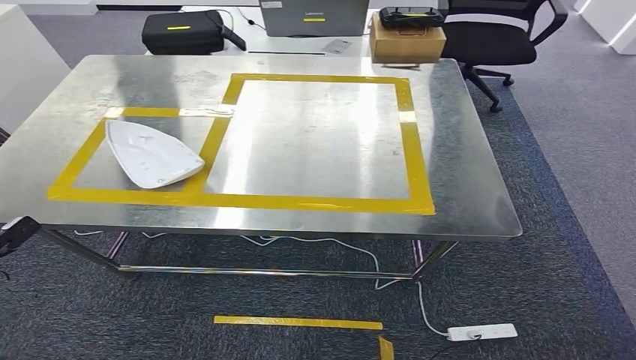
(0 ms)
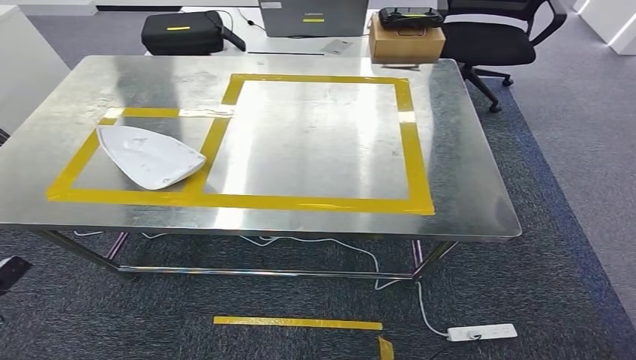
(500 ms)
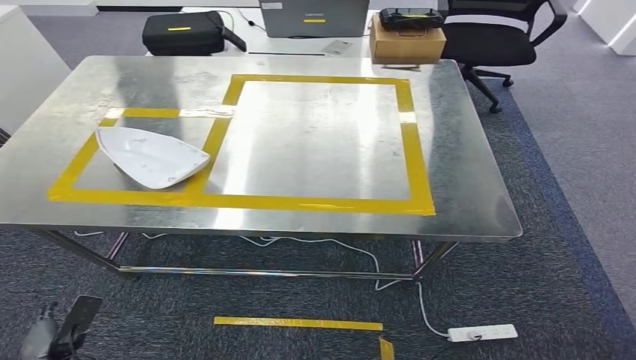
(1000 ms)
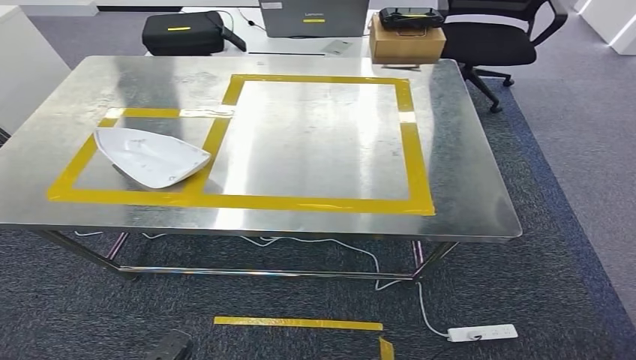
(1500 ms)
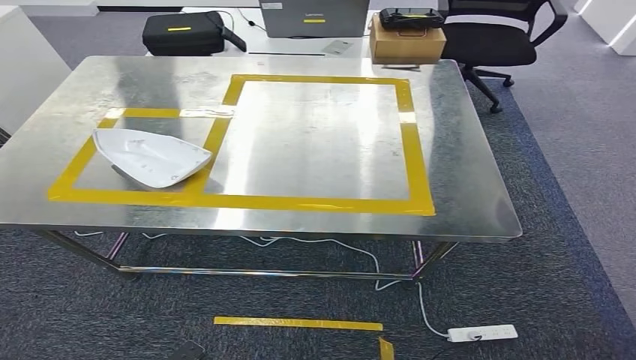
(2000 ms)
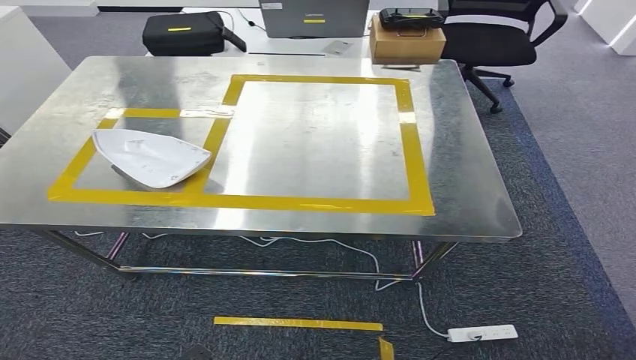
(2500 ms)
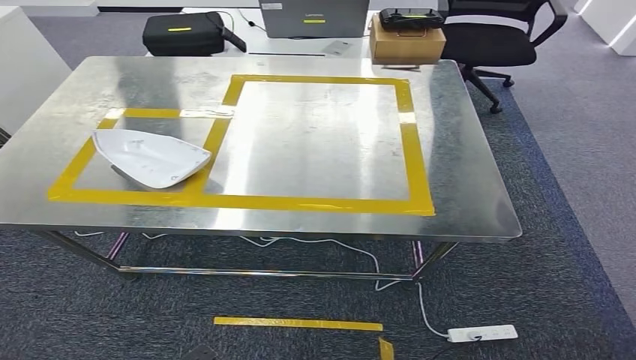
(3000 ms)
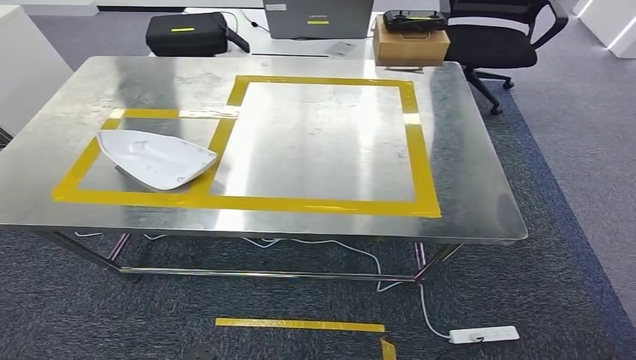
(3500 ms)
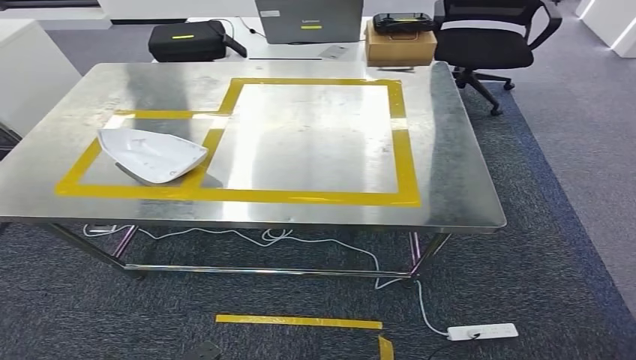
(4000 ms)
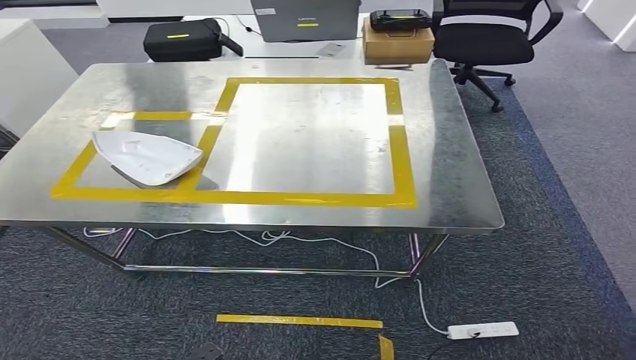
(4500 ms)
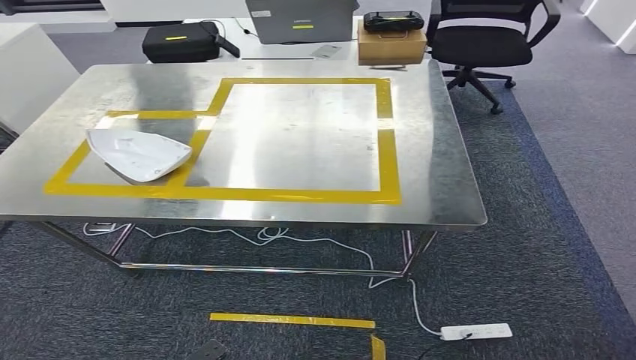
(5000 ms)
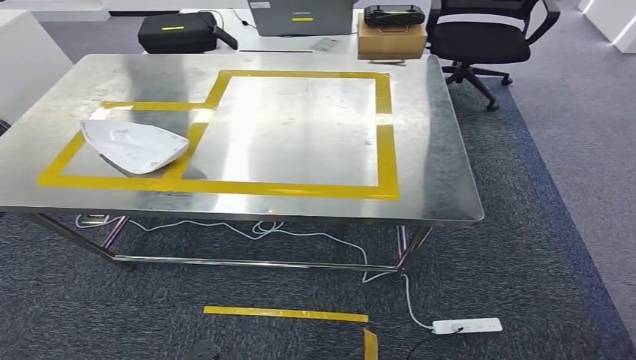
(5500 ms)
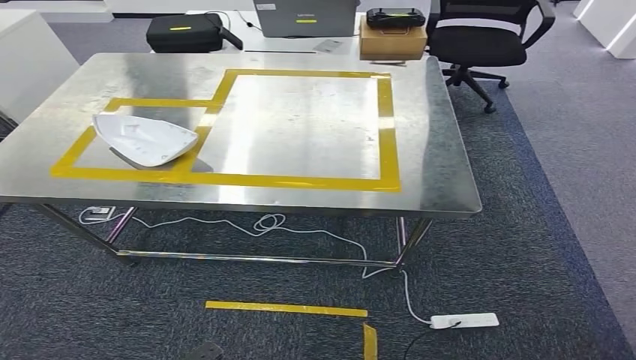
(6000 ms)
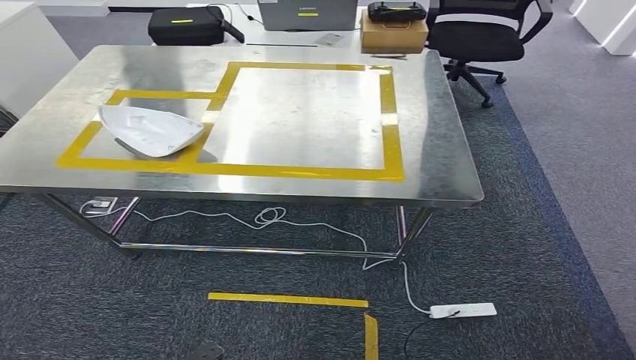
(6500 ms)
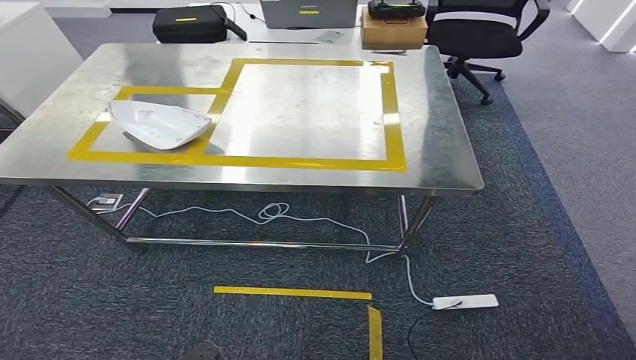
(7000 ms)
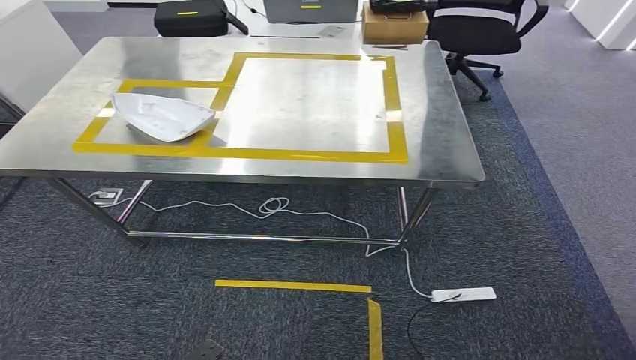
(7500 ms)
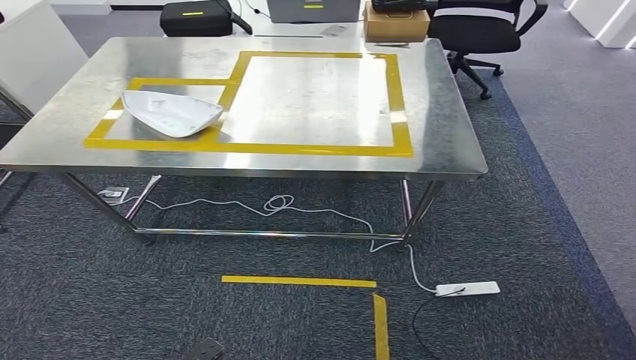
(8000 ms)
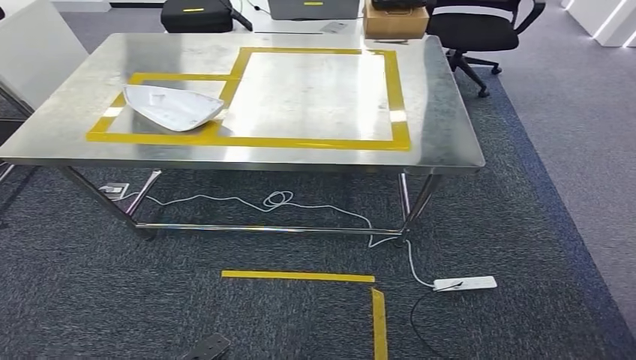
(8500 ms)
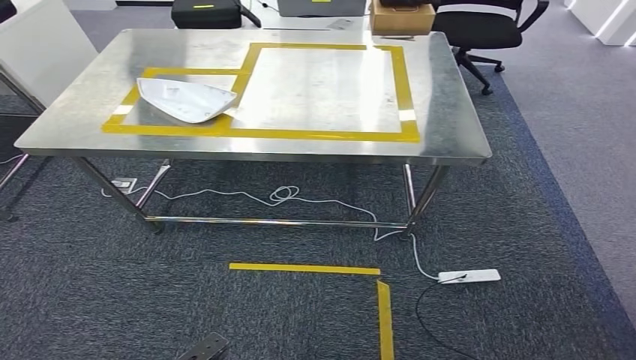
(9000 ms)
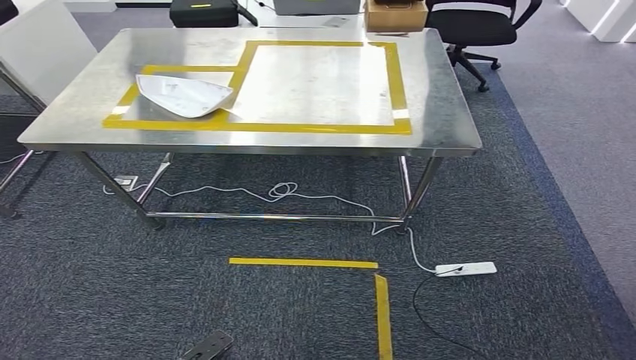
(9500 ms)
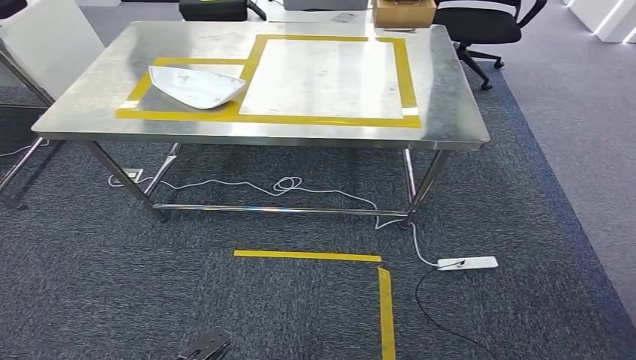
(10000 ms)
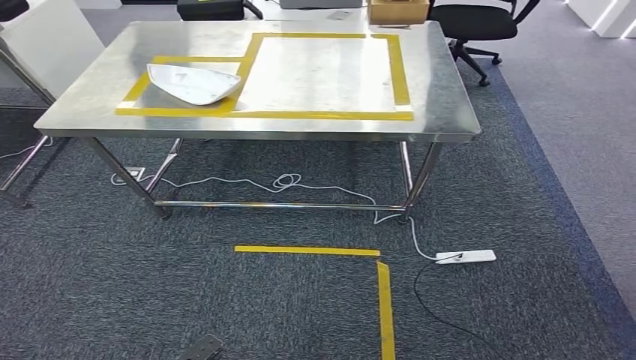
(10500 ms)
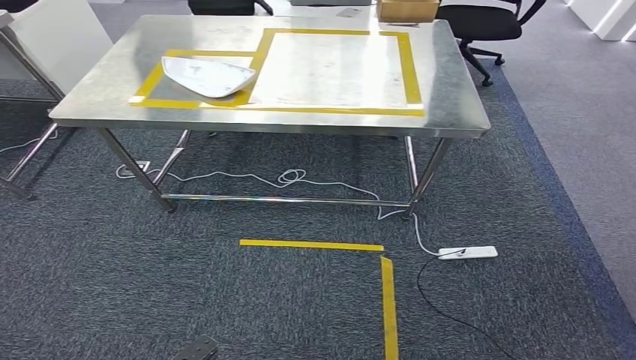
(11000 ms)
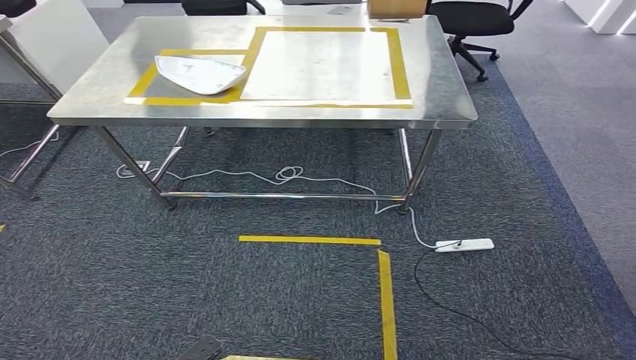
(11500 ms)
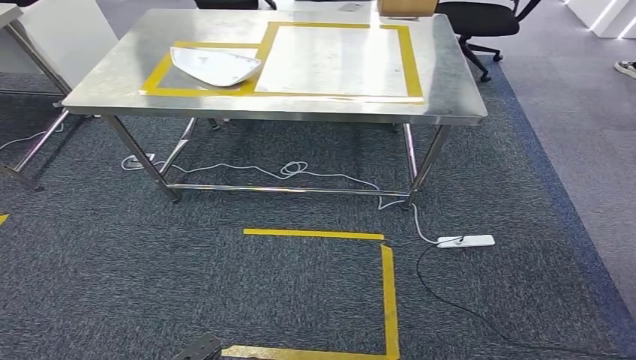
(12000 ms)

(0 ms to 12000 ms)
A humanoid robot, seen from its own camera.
0 ms - 2000 ms: The left hand heads to the right, backward and downward, covering approximately 40 cm.
2000 ms - 4000 ms: There are only small adjustments of the hands.

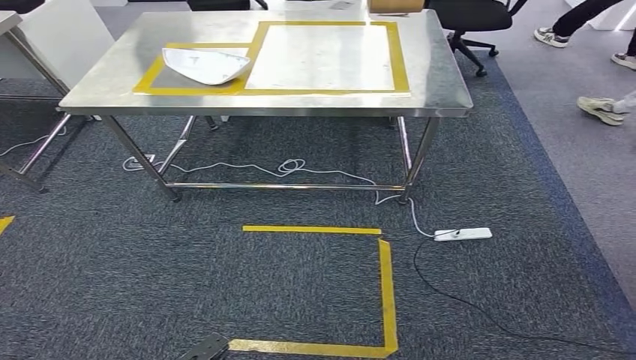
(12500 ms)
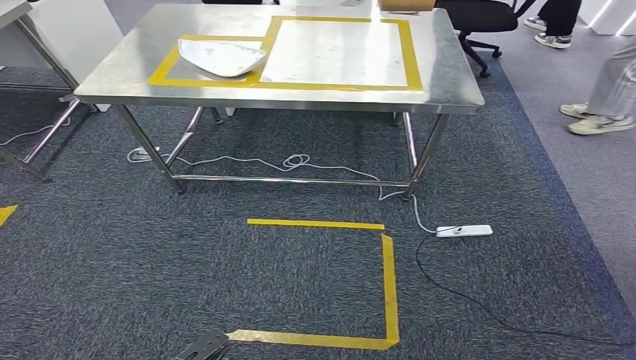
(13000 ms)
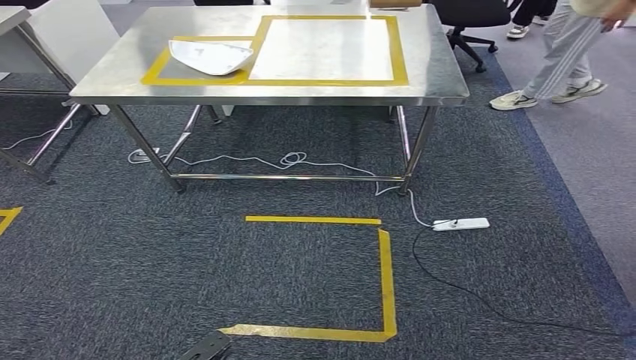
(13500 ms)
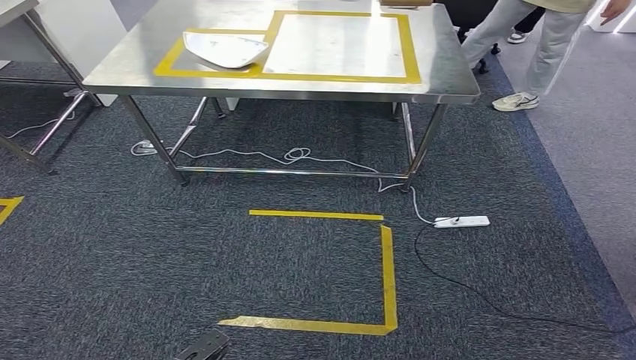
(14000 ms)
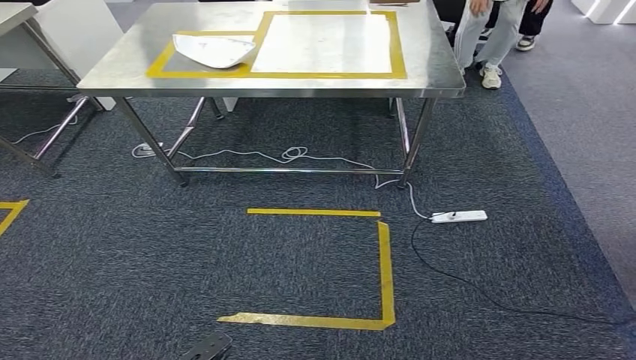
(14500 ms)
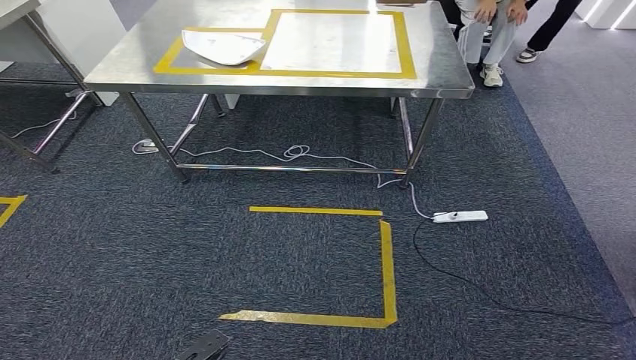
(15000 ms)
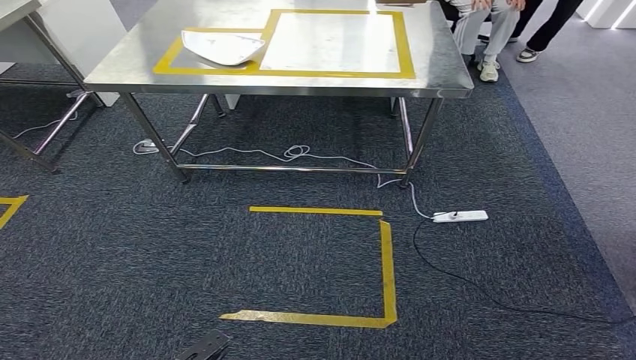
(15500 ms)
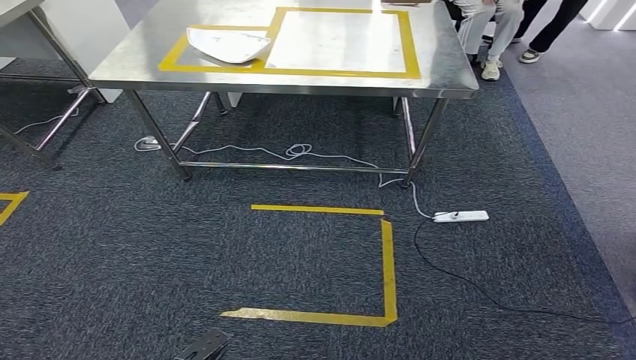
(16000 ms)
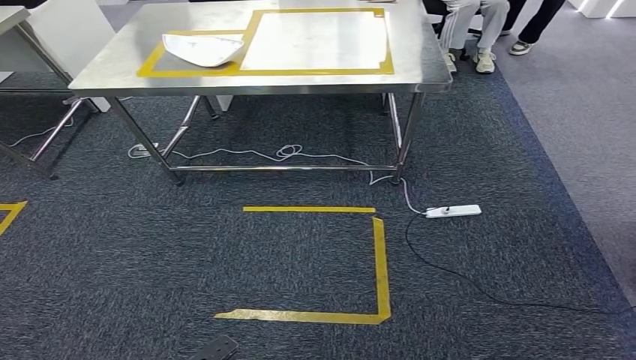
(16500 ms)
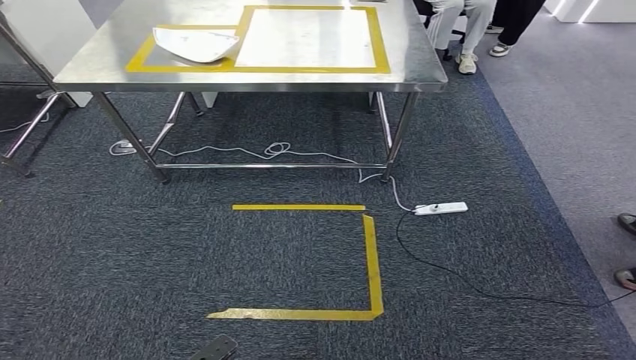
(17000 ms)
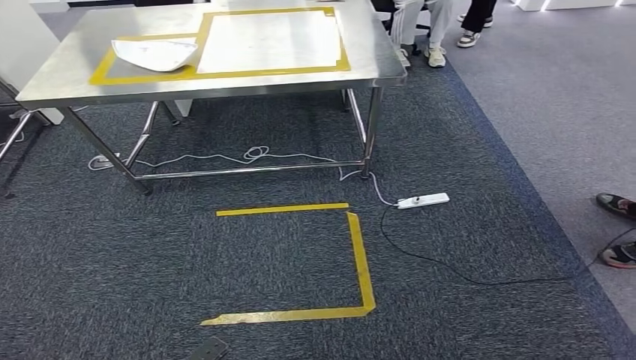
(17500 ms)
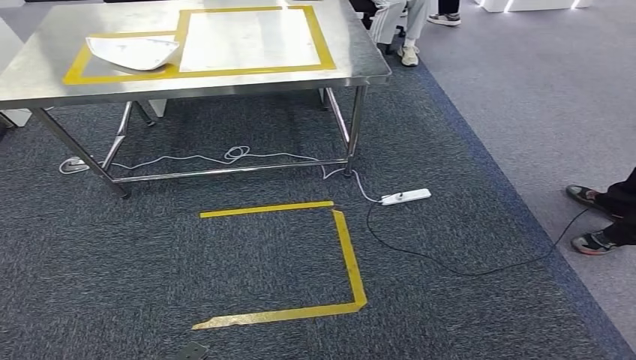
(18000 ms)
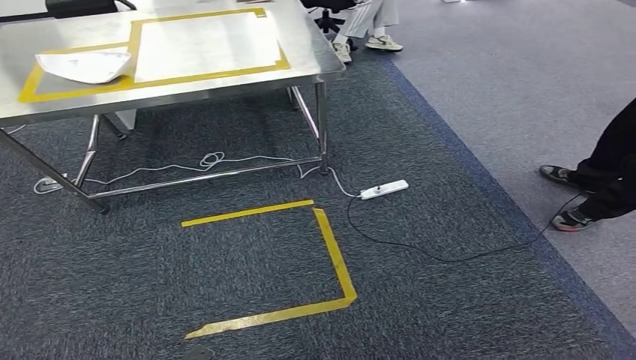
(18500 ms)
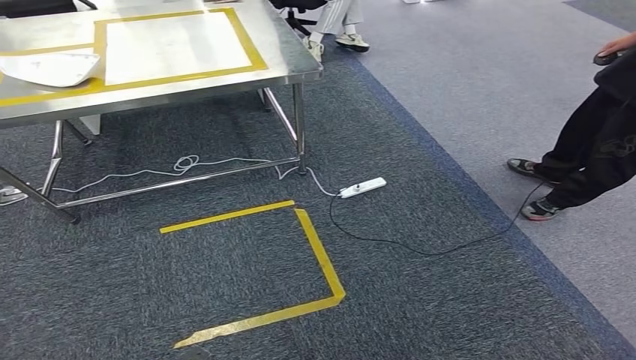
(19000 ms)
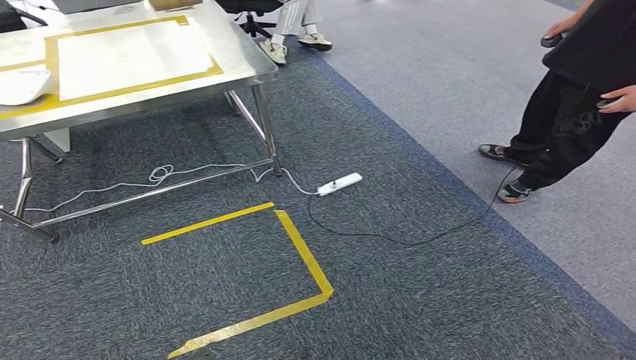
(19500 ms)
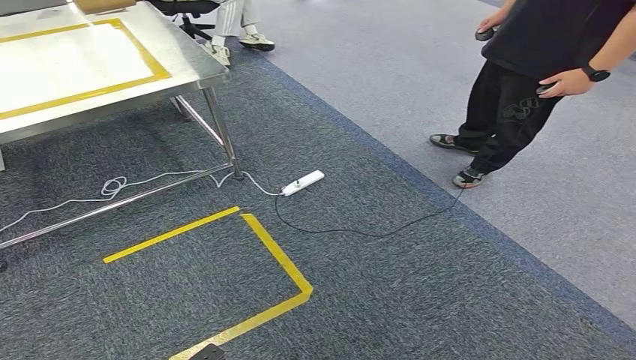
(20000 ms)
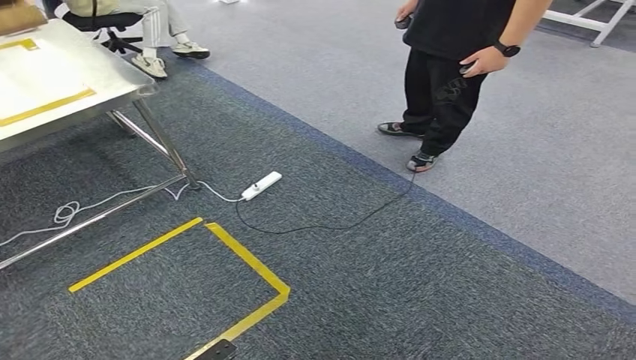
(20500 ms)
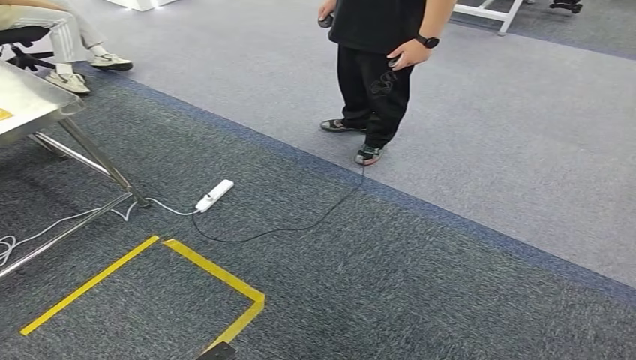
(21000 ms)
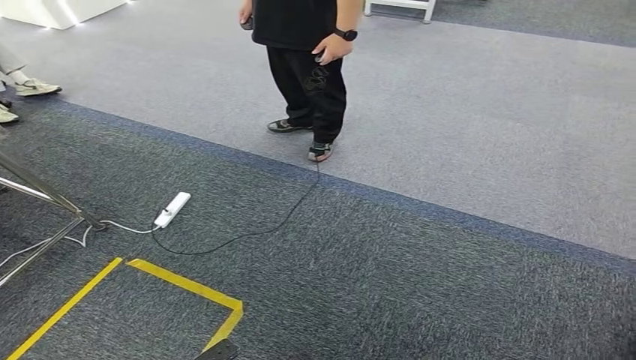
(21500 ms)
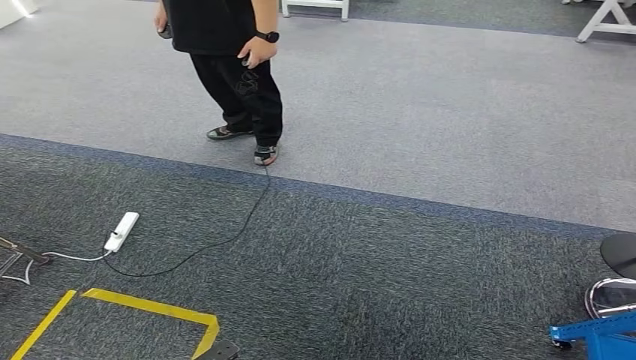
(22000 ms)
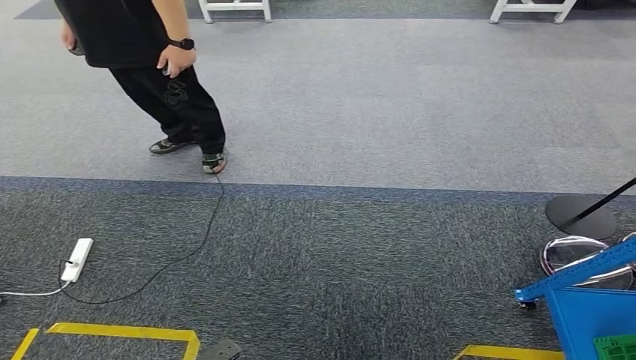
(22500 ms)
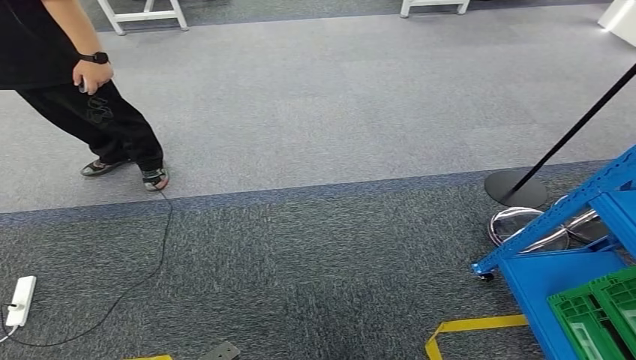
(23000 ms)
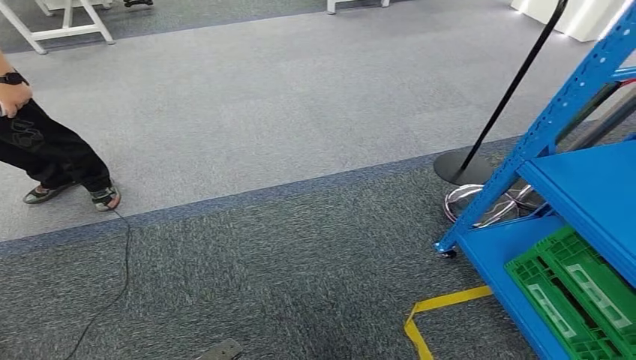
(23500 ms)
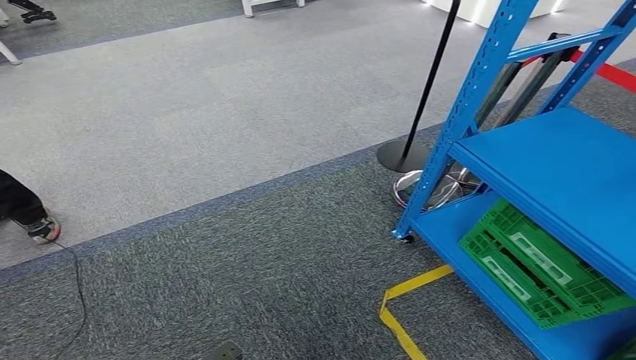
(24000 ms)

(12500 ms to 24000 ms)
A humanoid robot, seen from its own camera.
14500 ms - 16500 ms: The hands move only a little.
